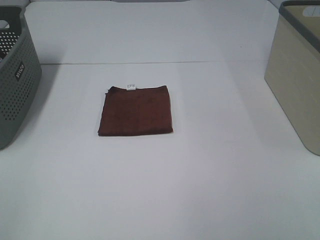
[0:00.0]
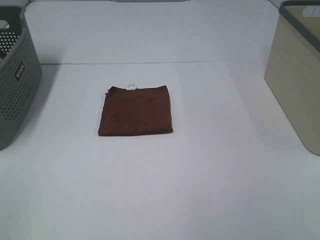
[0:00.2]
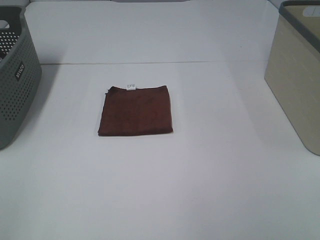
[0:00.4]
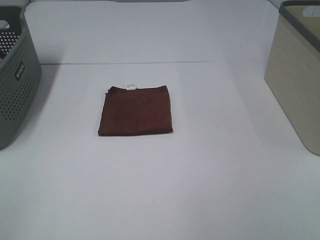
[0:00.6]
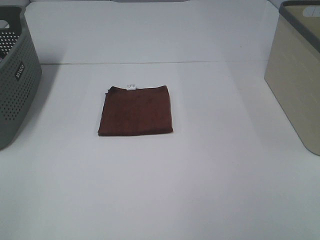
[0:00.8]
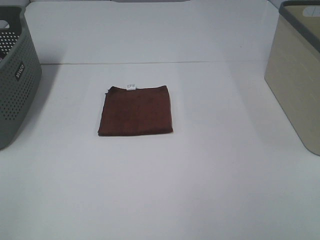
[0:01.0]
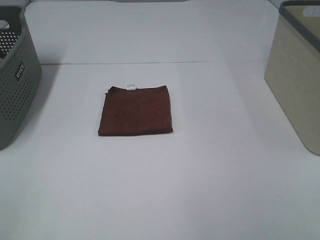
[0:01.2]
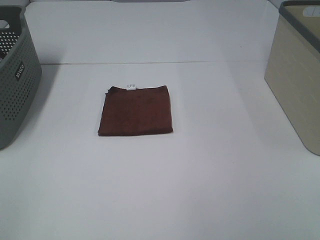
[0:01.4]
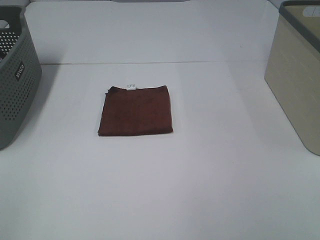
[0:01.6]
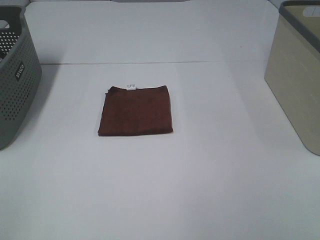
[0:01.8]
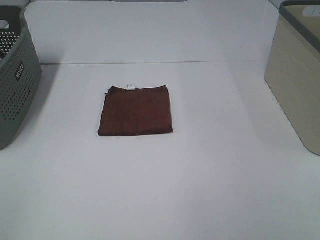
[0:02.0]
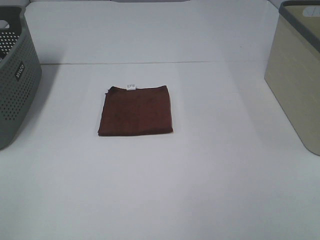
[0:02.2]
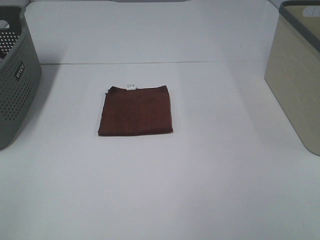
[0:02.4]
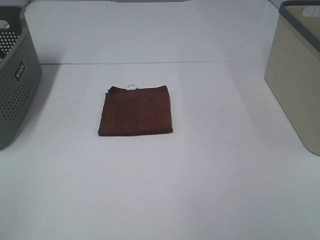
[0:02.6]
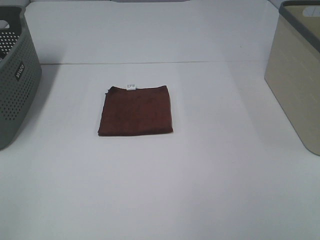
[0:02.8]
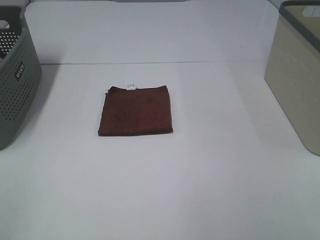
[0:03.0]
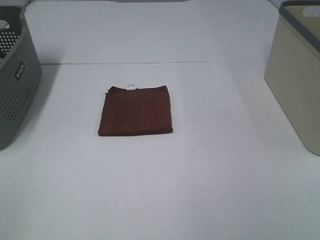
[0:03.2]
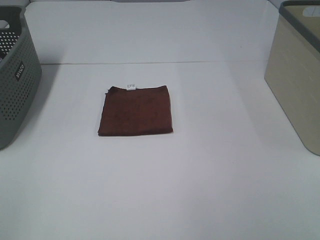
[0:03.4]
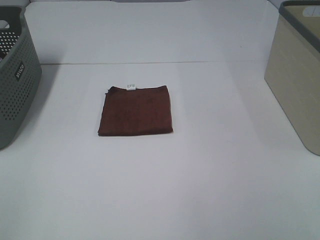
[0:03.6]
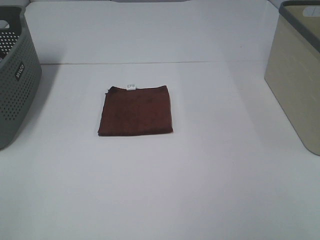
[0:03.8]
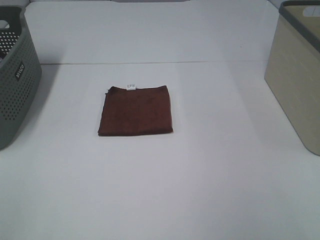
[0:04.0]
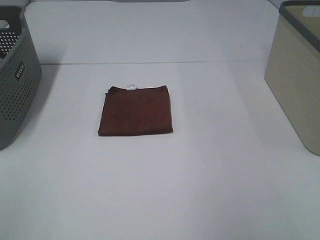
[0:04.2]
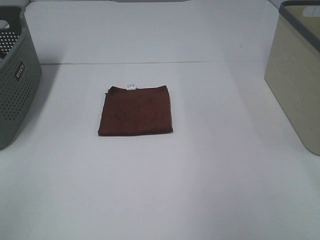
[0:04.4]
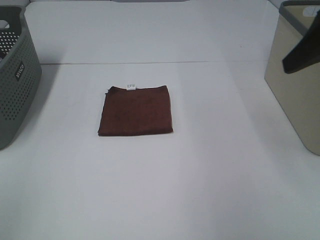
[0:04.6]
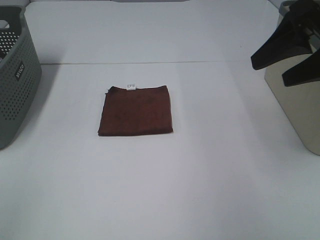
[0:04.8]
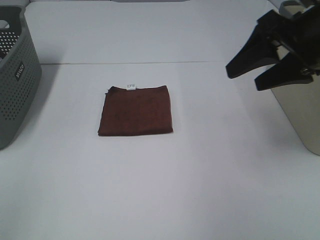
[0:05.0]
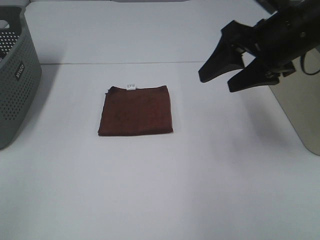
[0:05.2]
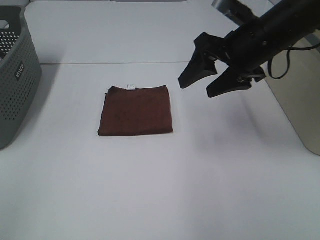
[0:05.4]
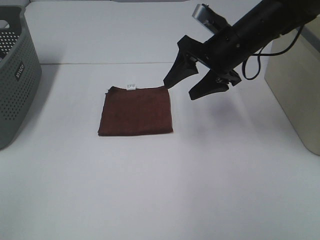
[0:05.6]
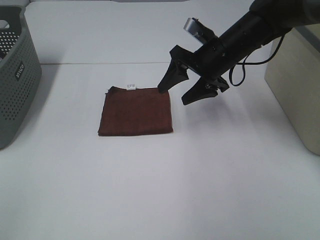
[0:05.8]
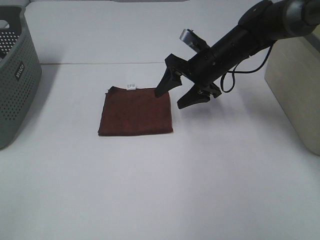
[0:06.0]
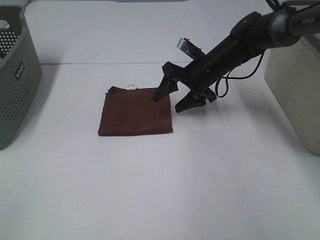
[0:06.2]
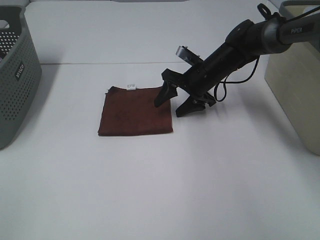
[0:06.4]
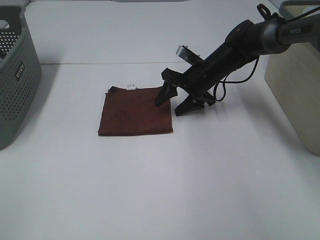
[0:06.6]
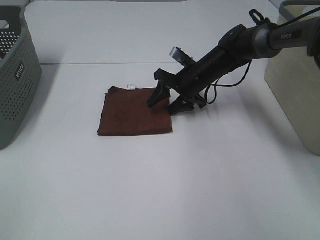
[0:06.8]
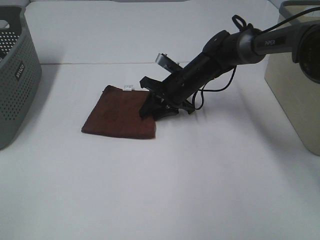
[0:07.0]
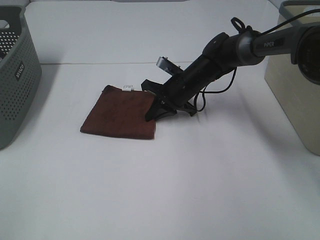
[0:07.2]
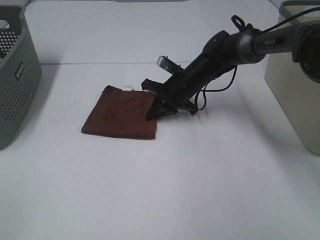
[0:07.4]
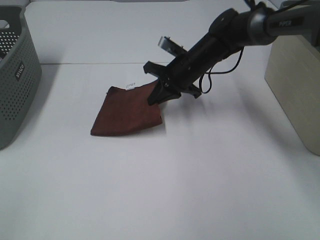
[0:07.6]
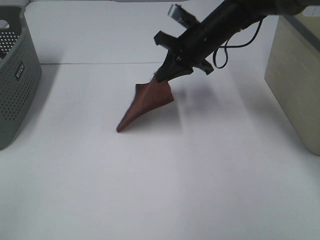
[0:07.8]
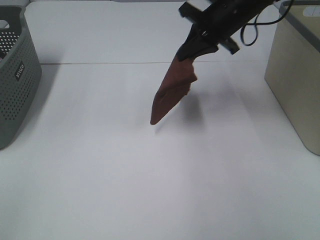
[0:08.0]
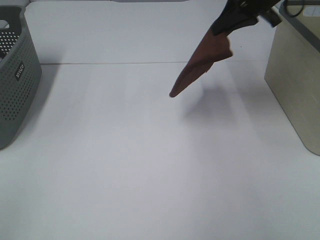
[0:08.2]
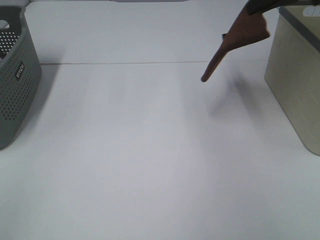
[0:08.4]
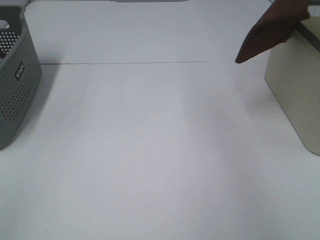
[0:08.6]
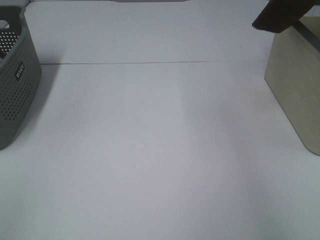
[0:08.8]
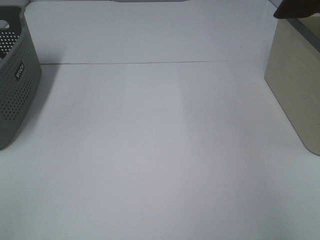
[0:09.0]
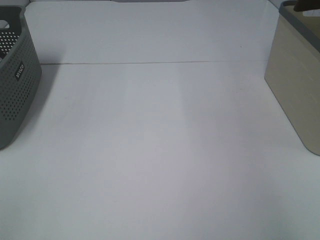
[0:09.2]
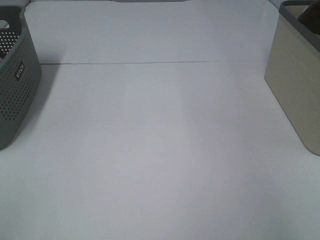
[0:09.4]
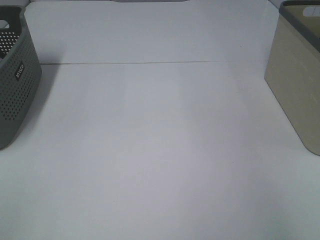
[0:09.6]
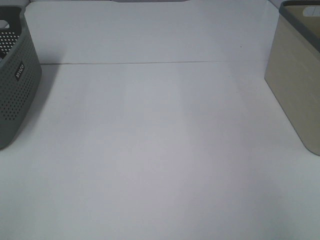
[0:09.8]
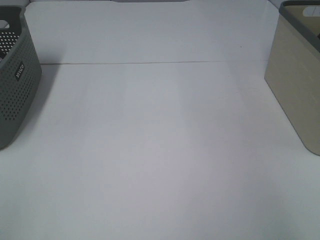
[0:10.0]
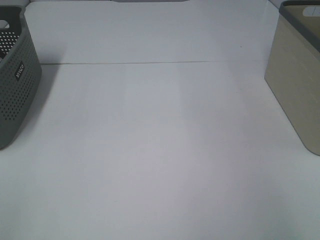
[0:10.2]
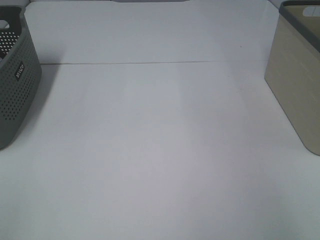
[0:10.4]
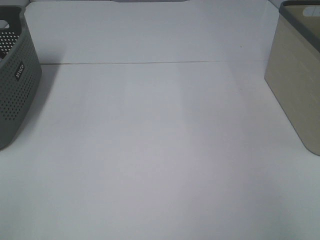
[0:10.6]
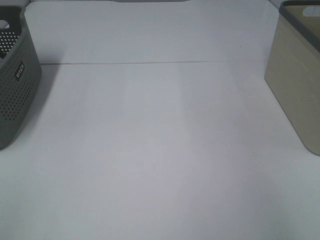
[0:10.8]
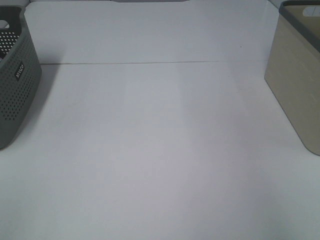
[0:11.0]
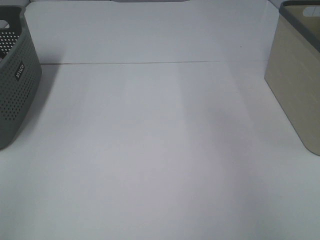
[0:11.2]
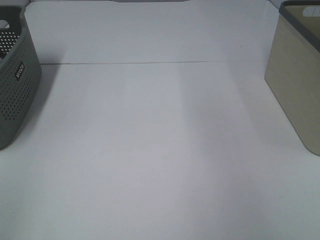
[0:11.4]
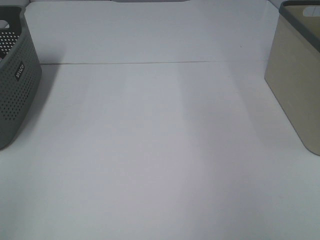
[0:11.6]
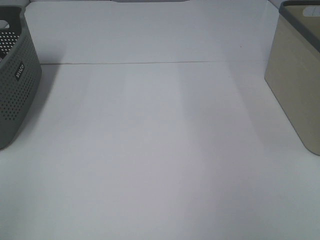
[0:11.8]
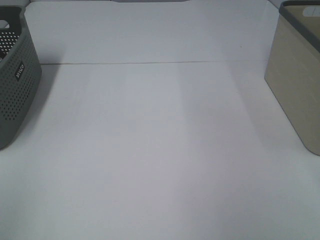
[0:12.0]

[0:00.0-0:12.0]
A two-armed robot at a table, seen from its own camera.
Step, 0:00.0 to 0:07.4: Right hand: grab the folded brown towel.
Step, 0:07.6 to 0:10.4: Right hand: place the brown towel in right basket.
0:00.0 to 0:03.0: Both grippers stay put.
0:04.4 to 0:06.0: The right gripper moves forward, downward and to the left, roughly 35 cm.
0:06.0 to 0:07.6: The right gripper closes its fingers.
0:07.6 to 0:09.0: The right gripper shifts about 40 cm to the right and upward.
0:09.0 to 0:10.4: The right gripper changes place by roughly 5 cm, and opens.

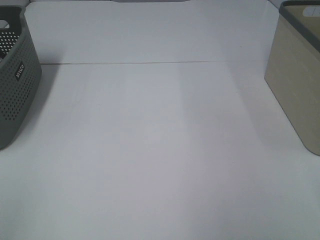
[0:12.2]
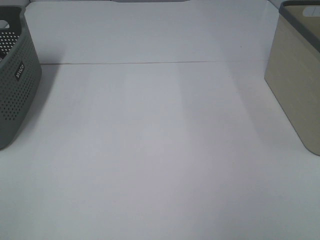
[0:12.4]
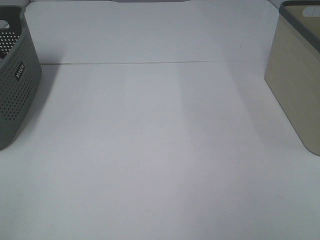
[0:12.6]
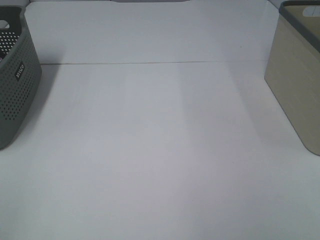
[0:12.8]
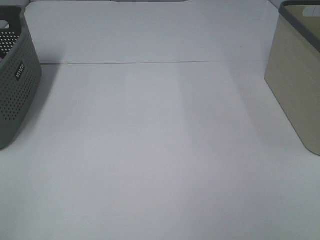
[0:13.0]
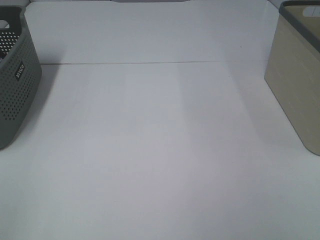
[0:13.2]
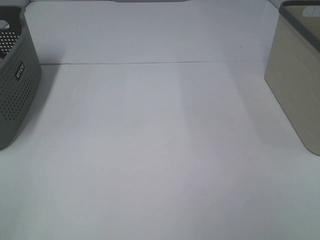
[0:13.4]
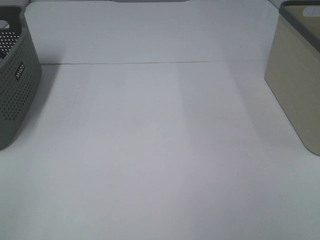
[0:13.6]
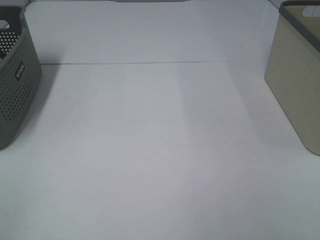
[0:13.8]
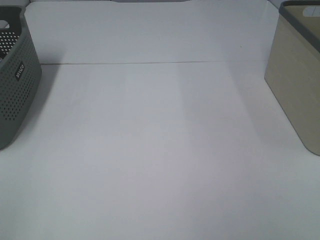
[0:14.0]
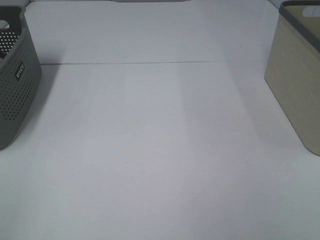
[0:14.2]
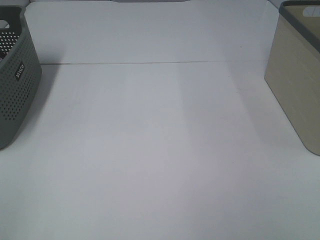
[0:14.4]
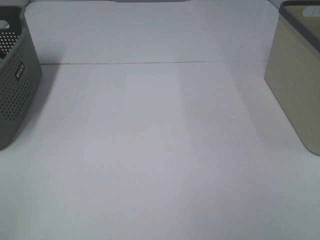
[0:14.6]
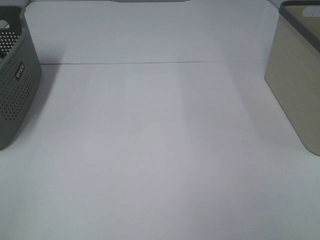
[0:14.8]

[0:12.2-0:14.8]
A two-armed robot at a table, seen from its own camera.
0:13.4 to 0:14.8: Both grippers stay about where they are.

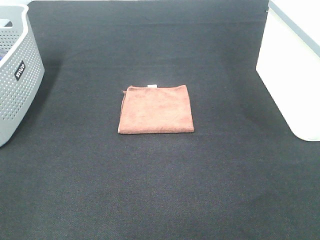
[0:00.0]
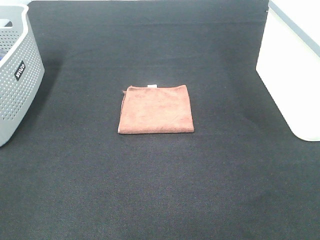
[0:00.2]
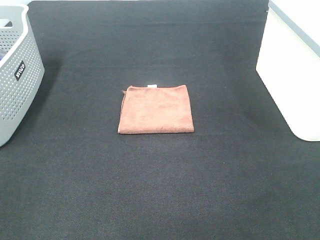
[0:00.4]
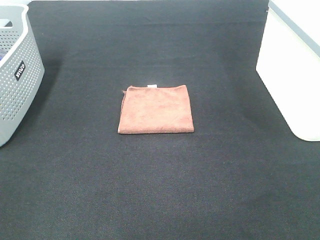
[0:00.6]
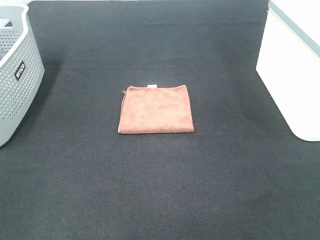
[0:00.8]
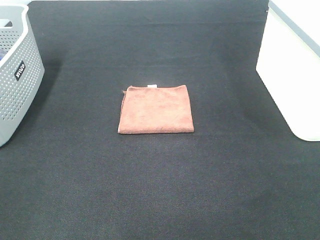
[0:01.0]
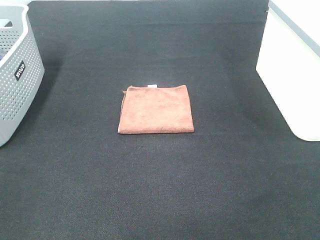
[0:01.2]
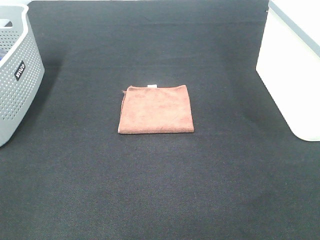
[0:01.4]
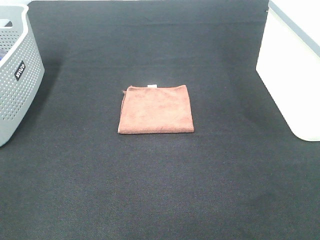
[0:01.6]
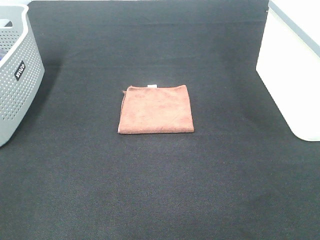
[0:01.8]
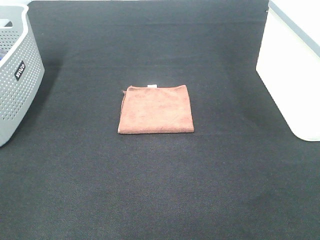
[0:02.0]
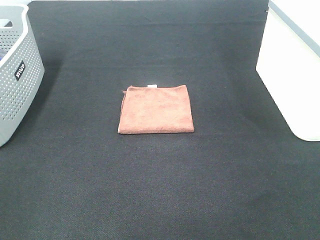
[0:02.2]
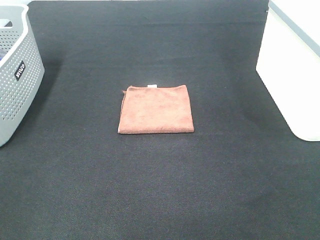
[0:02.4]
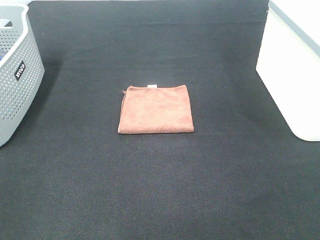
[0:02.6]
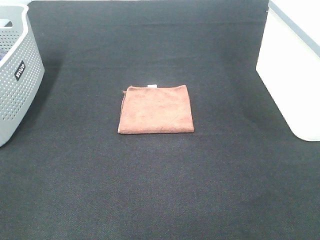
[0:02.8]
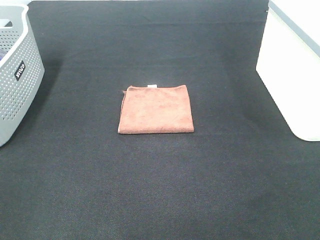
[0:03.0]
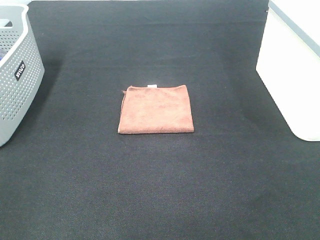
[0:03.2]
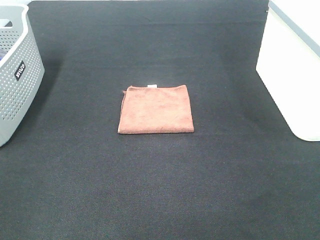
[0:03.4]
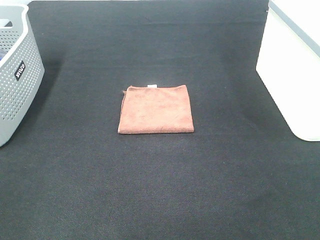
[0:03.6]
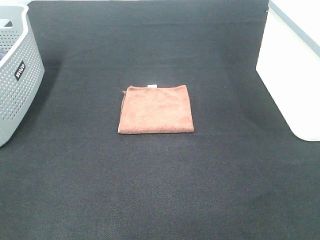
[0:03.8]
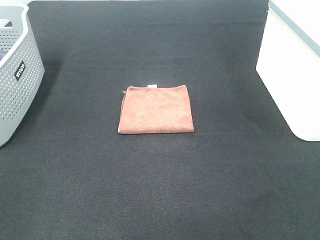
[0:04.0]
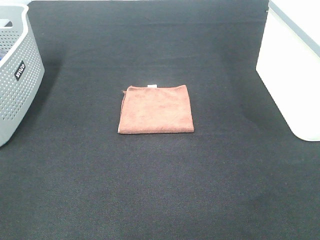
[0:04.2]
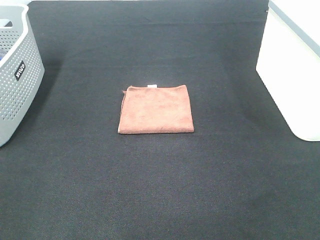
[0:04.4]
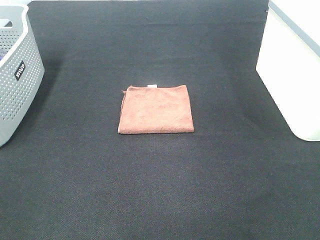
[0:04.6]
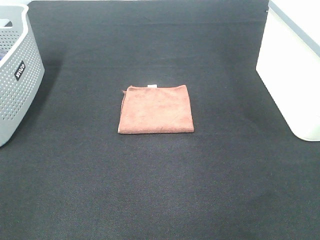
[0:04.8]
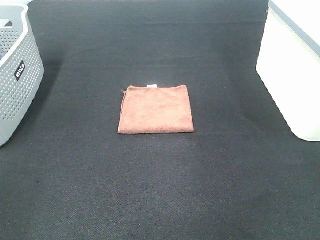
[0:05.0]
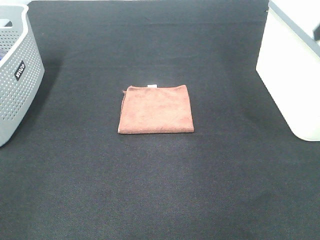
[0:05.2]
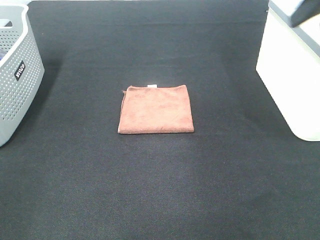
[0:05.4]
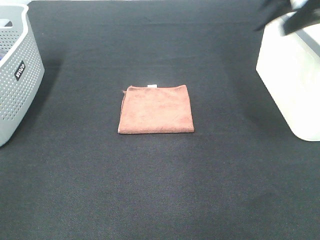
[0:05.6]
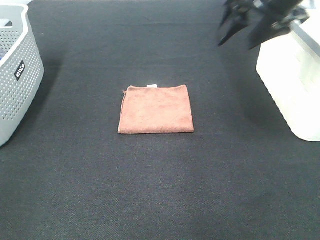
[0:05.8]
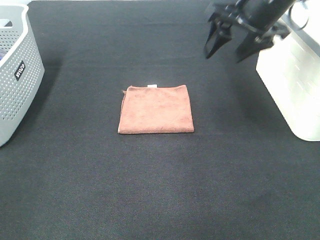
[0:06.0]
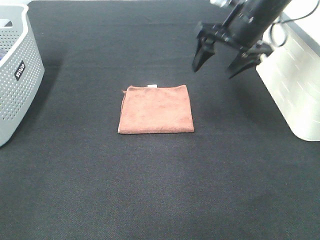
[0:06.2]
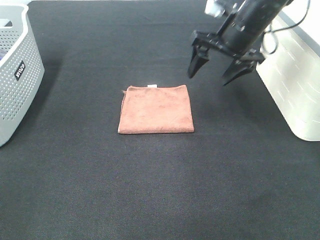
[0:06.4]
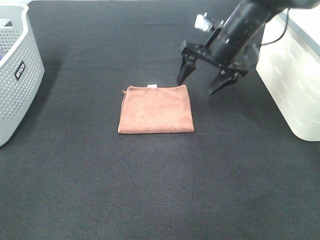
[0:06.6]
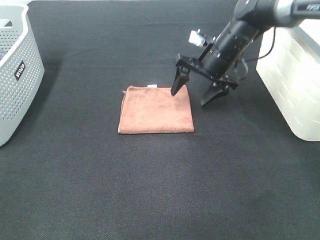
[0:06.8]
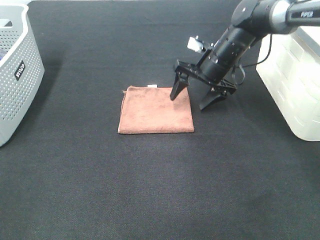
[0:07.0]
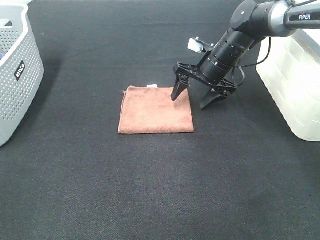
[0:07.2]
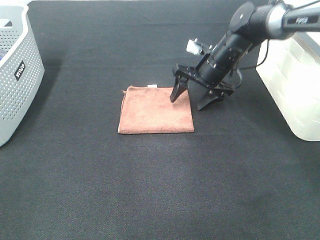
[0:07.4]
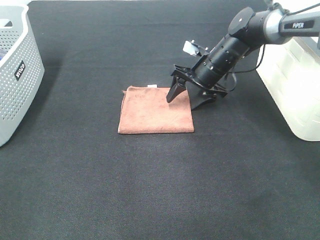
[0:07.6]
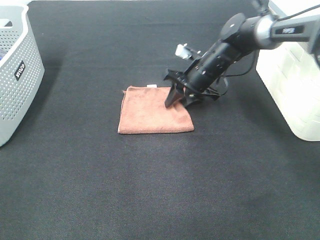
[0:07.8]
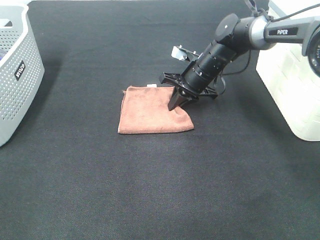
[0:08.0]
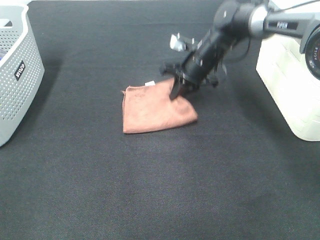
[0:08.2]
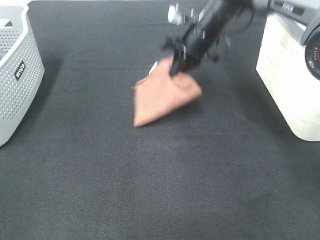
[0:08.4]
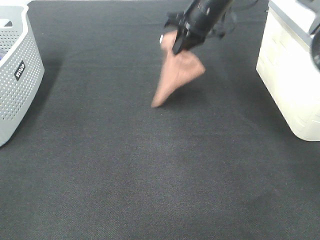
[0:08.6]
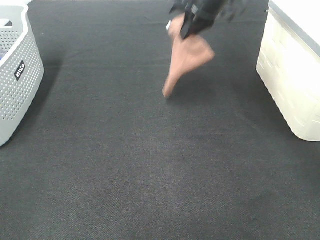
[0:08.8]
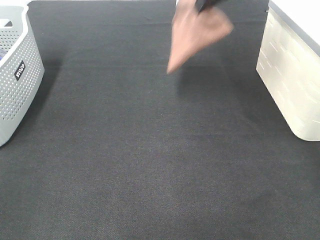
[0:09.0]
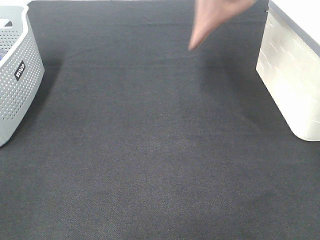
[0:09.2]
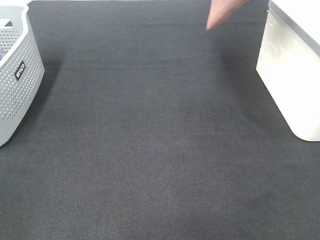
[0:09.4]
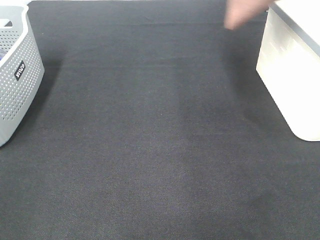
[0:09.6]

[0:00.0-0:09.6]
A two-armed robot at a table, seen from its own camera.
Step, 0:00.0 to 0:07.8: Right hand: grab the folded brown towel.
0:00.0 to 0:03.2: Neither gripper changes place.
0:04.8 to 0:06.4: The right gripper travels forward, downward and to the left by about 30 cm.
0:06.4 to 0:08.0: The right gripper travels downward by about 10 cm, and closes its fingers.
0:08.0 to 0:09.6: The right gripper is displaced upward and to the right by some 35 cm.
